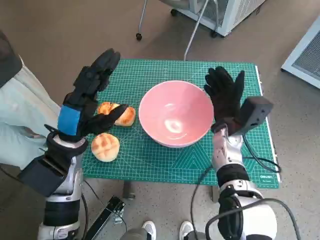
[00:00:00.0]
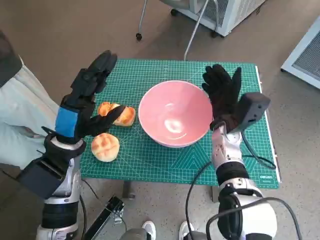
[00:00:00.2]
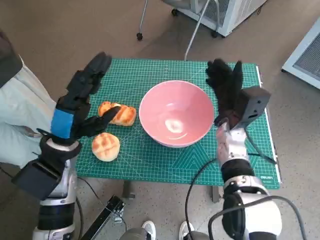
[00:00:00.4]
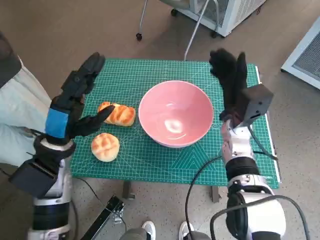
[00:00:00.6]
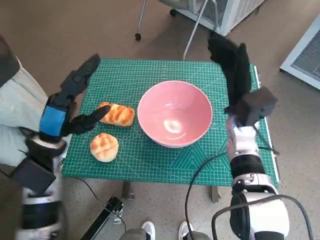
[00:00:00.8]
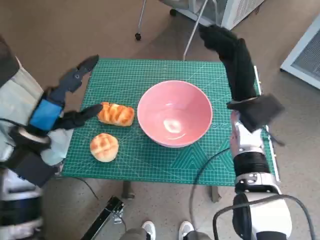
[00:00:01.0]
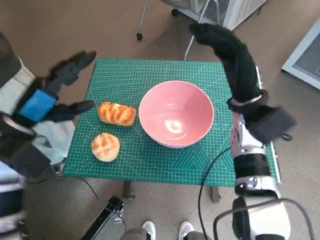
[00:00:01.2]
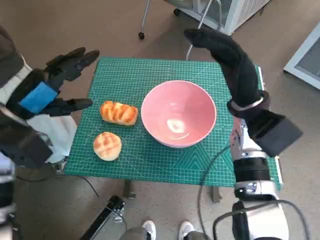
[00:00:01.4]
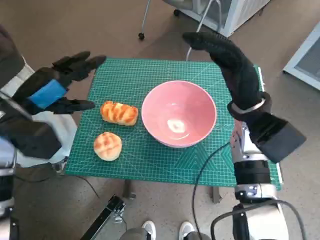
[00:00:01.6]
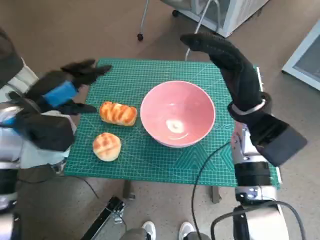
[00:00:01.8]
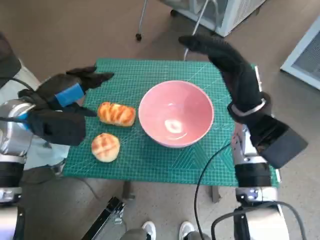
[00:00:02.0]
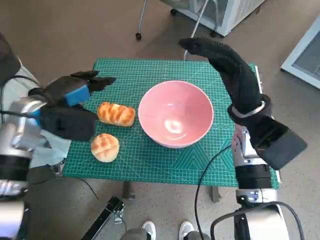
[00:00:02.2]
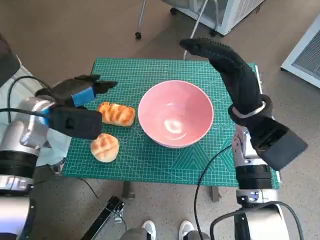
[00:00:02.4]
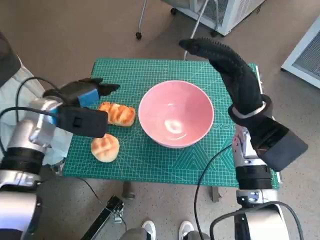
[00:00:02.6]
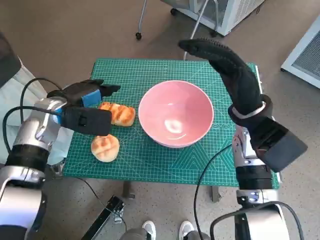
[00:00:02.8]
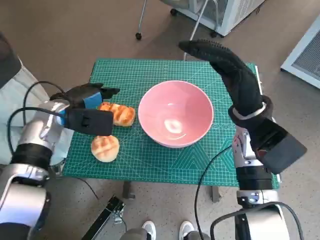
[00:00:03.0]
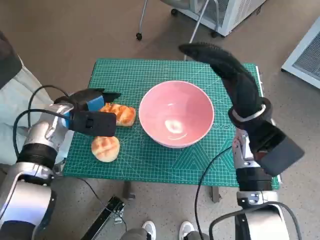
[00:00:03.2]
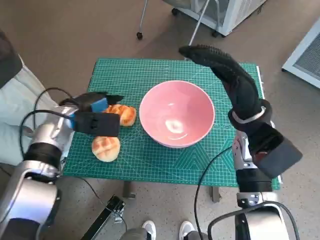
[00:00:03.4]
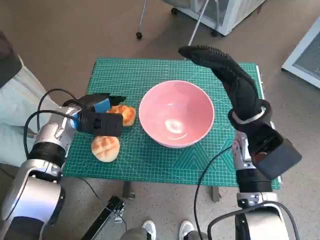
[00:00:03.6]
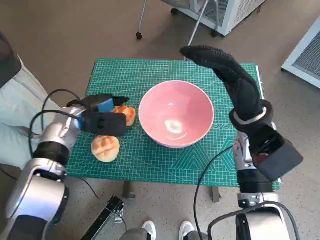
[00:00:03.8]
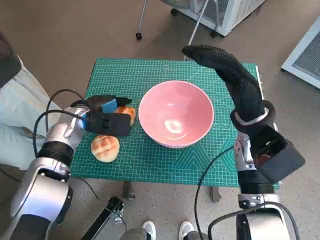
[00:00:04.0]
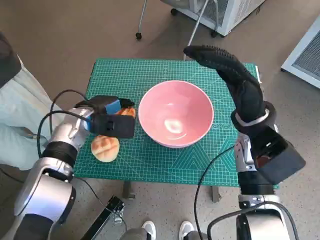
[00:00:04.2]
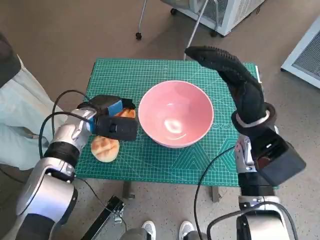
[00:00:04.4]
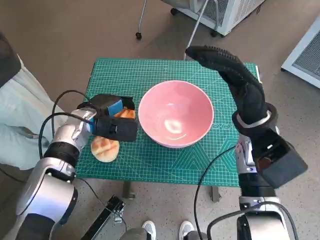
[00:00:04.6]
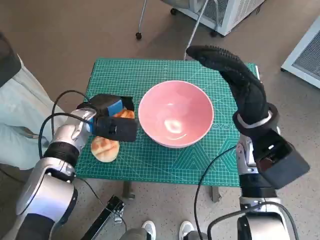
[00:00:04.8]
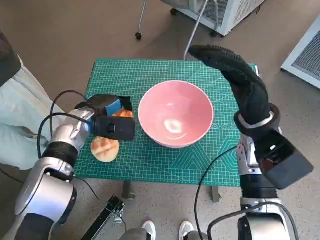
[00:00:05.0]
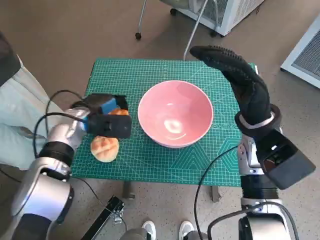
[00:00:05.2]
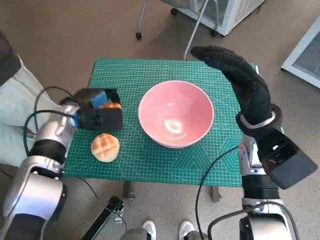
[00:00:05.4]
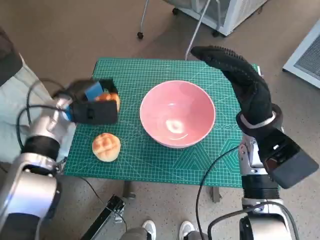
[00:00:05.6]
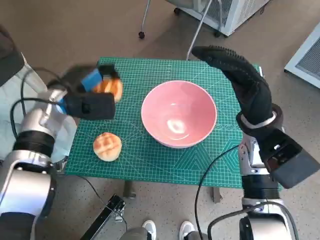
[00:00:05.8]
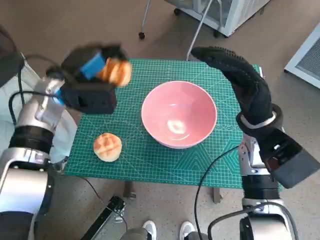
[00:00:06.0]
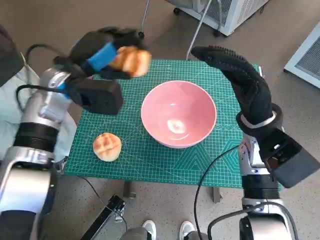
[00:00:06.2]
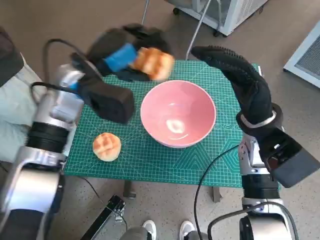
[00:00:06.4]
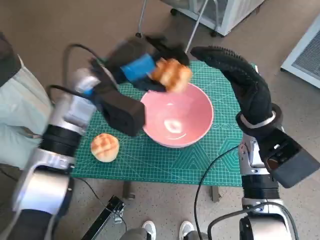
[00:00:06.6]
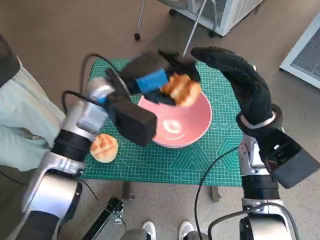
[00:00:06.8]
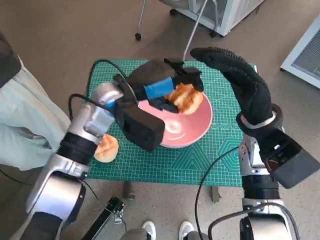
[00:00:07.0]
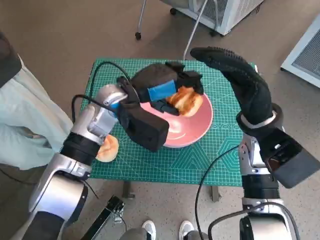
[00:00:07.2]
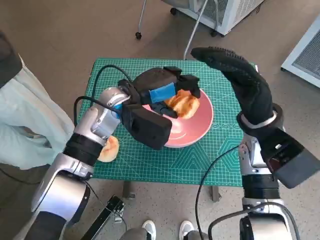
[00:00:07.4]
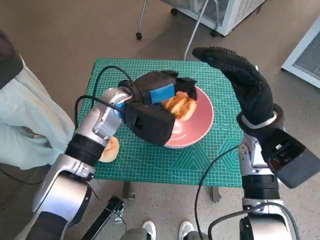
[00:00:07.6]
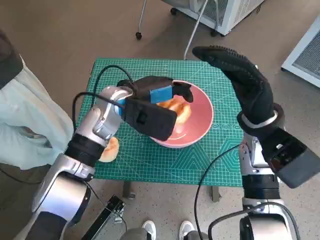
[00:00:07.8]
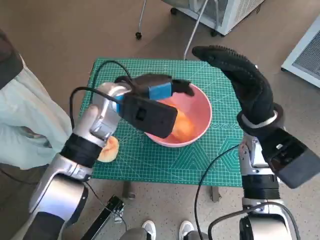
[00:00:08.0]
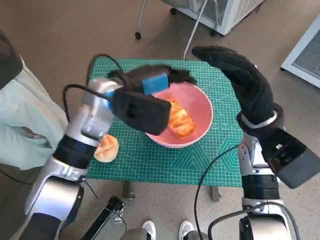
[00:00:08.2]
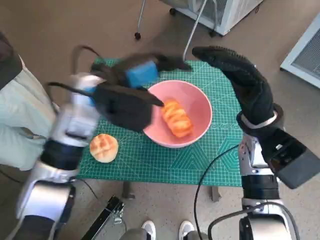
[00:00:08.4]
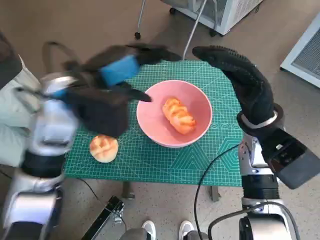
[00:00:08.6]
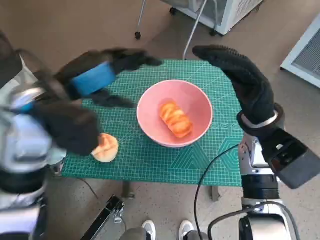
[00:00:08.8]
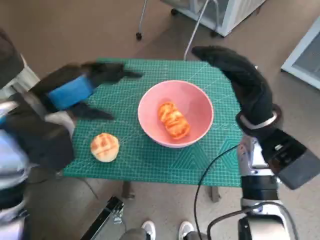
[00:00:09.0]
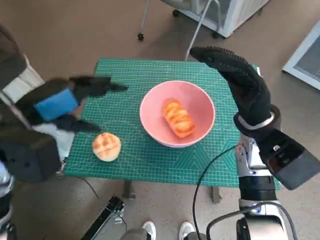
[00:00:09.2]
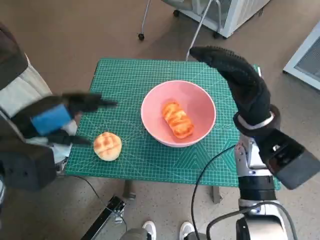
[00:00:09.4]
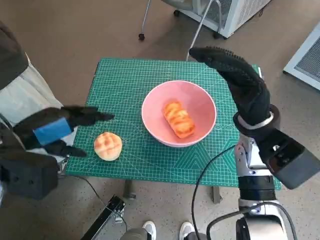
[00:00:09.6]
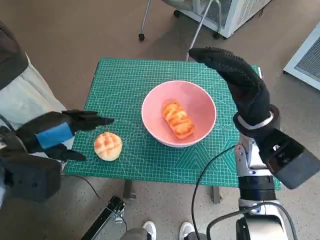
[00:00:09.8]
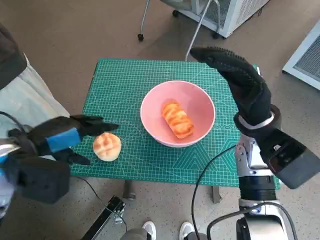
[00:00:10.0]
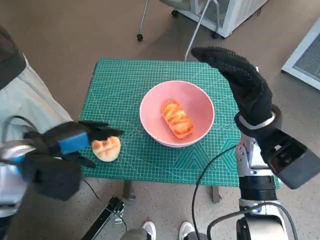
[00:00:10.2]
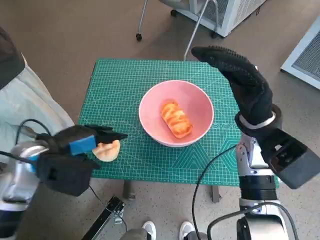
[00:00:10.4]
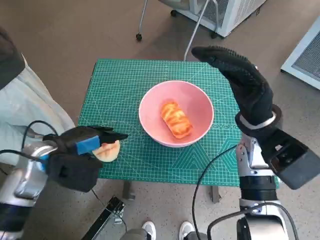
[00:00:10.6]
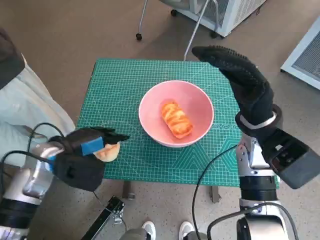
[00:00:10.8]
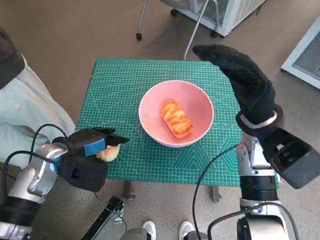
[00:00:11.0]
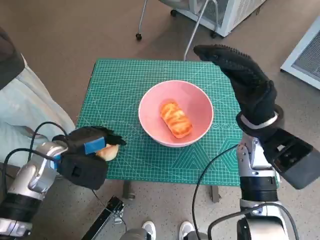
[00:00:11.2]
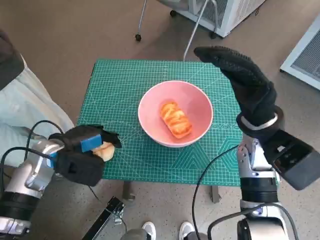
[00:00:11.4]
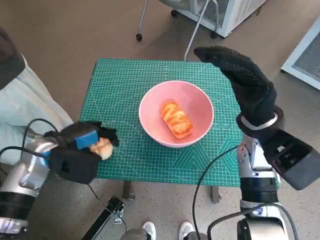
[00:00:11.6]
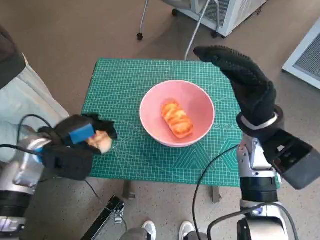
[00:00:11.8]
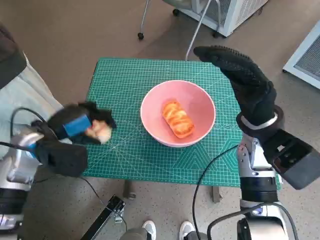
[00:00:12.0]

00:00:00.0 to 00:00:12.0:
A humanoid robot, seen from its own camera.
Task of the whole recording: Push the bowl to the center of the table and put the bread into the bowl.
Step, 00:00:00.6 to 00:00:04.4: Grasp the long bread with left hand.
Step, 00:00:04.6 to 00:00:08.2: Place the long bread in pink bowl with left hand.
Step, 00:00:08.4 to 00:00:11.2: Grasp the round bread with left hand.
00:00:00.0 to 00:00:01.6: The left hand shifts some 10 cm to the left and upward. Meanwhile the right hand shifts some 10 cm upward.
00:00:01.6 to 00:00:03.0: The left hand shifts about 10 cm forward and downward.
00:00:03.0 to 00:00:04.4: The left hand ends up about 5 cm from where it was.
00:00:04.4 to 00:00:06.0: The left hand goes roughly 10 cm upward.
00:00:06.0 to 00:00:07.6: The left hand moves to the right, some 10 cm.
00:00:07.6 to 00:00:09.0: The left hand shifts roughly 15 cm to the left, backward and upward.
00:00:09.0 to 00:00:10.4: The left hand travels downward by approximately 10 cm.
00:00:10.4 to 00:00:12.0: The hands move only a little.

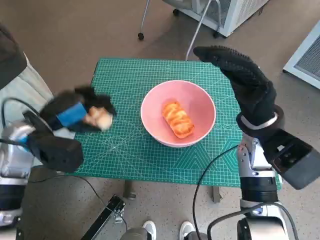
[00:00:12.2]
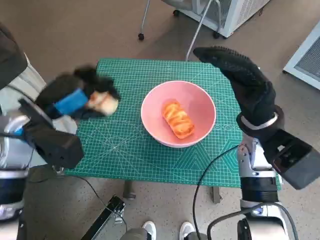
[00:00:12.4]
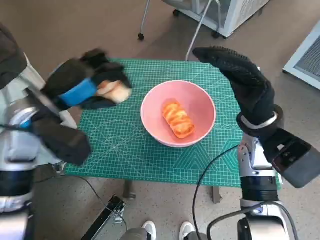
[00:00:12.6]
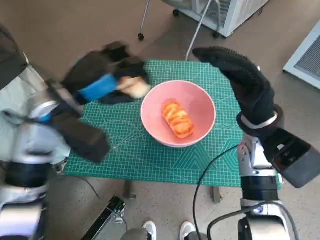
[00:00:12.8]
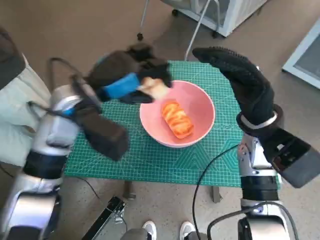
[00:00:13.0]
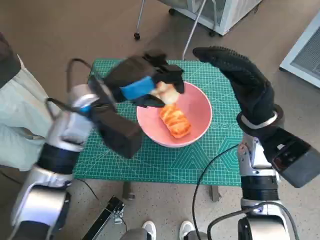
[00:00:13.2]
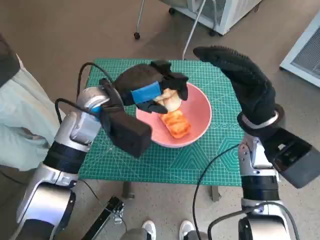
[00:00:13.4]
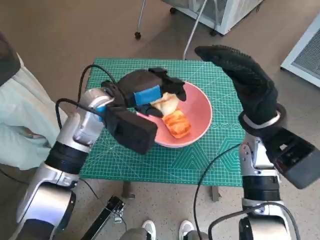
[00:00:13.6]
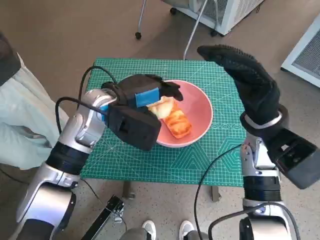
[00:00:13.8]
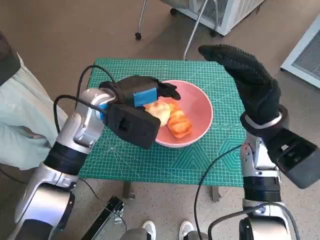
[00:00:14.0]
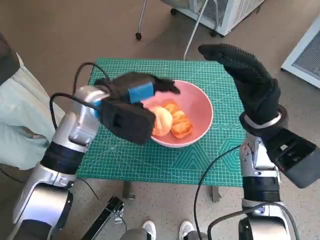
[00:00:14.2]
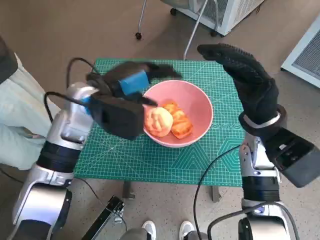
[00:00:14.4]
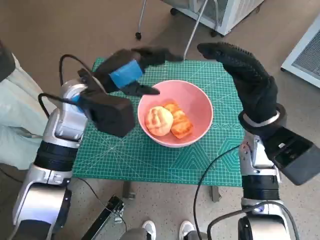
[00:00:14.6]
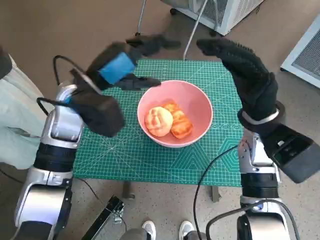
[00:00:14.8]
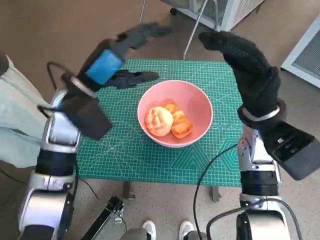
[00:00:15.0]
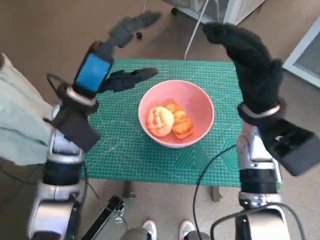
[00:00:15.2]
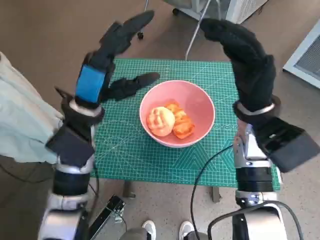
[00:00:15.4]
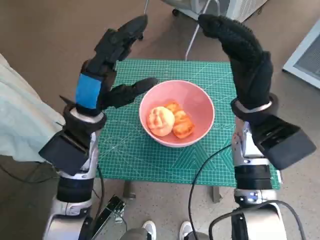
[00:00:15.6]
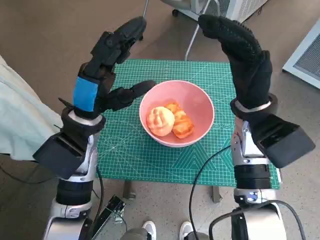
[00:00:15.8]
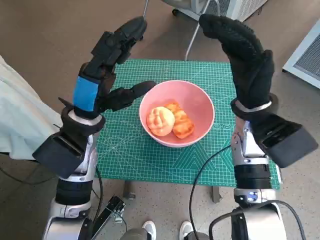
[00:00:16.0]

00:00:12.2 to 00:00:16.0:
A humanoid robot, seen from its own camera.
Task of the whole recording: Push the bowl to the center of the table and put the bread into the bowl.
Step, 00:00:12.2 to 00:00:14.2: Place the round bread in pink bowl with left hand.
00:00:12.2 to 00:00:13.4: The left hand moves to the right, some 15 cm.
00:00:14.8 to 00:00:16.0: The left hand shifts by some 5 cm.
